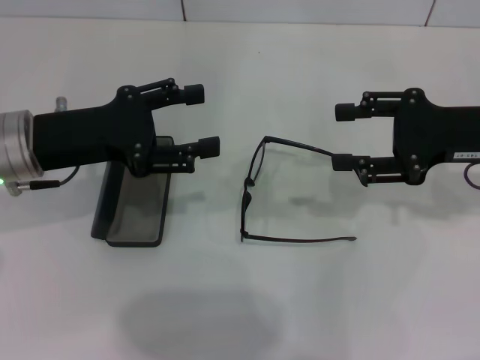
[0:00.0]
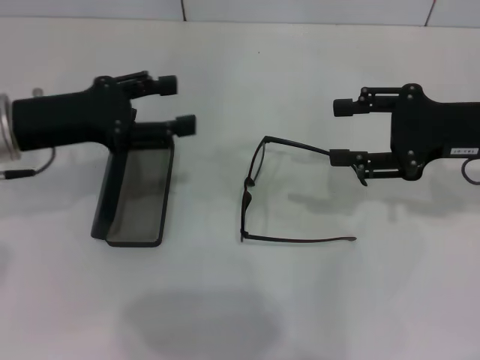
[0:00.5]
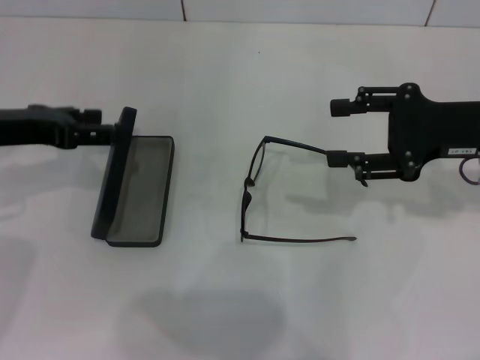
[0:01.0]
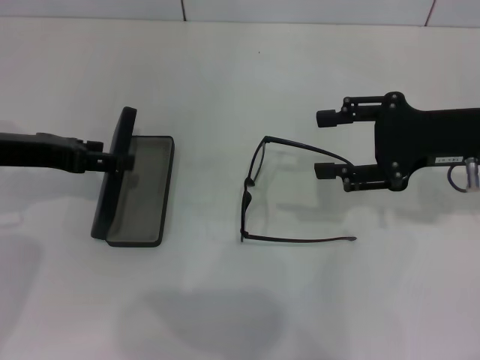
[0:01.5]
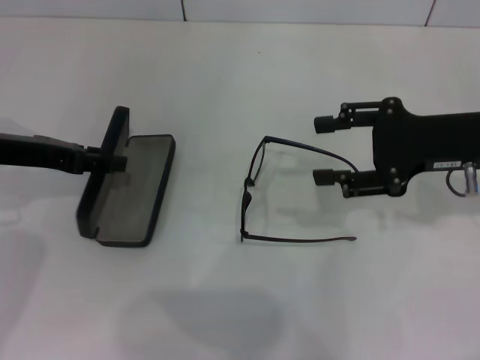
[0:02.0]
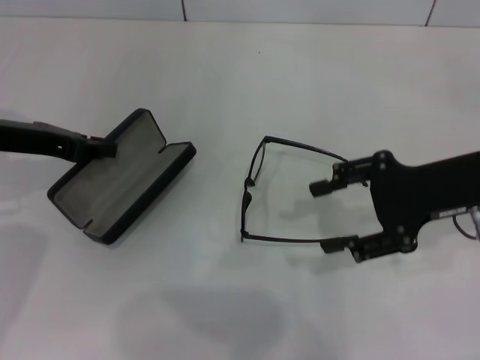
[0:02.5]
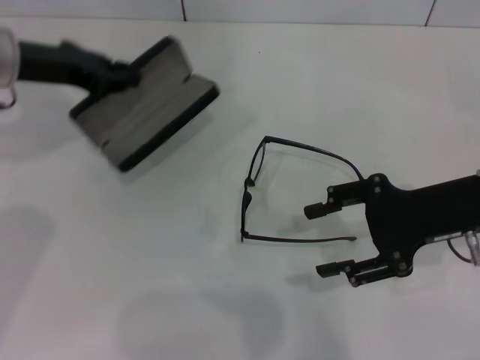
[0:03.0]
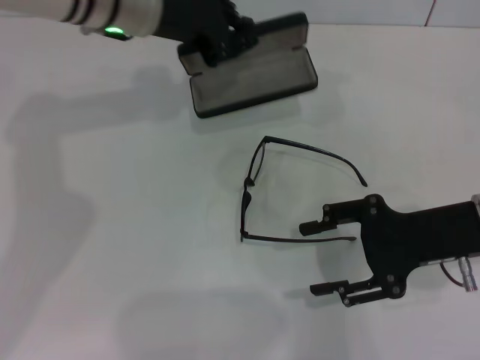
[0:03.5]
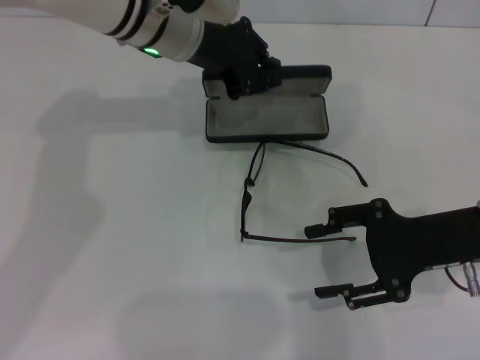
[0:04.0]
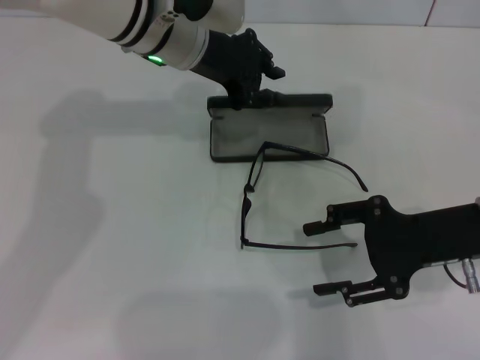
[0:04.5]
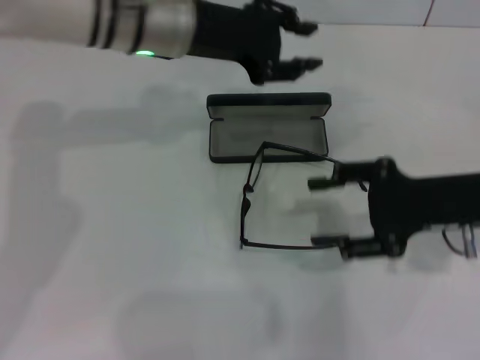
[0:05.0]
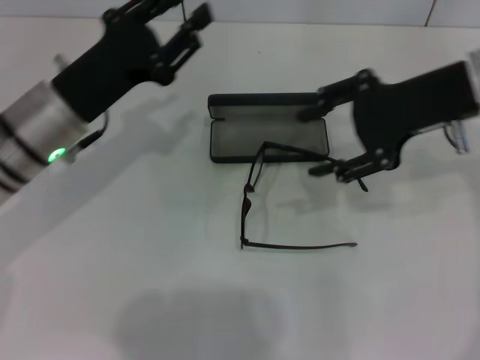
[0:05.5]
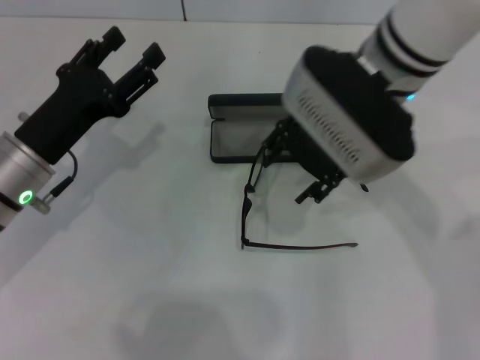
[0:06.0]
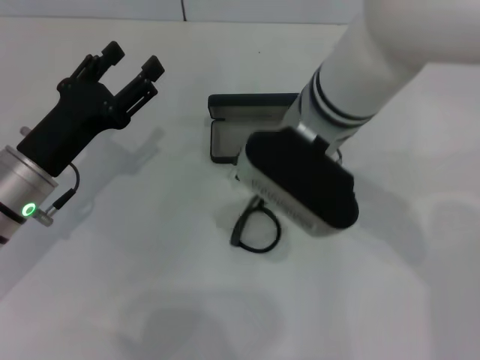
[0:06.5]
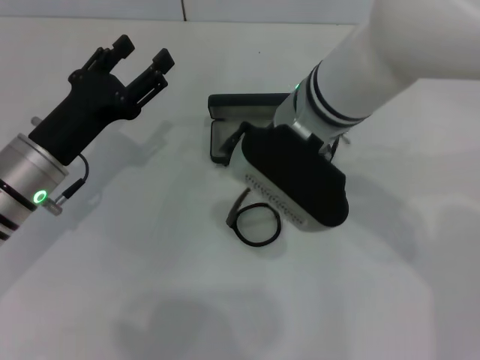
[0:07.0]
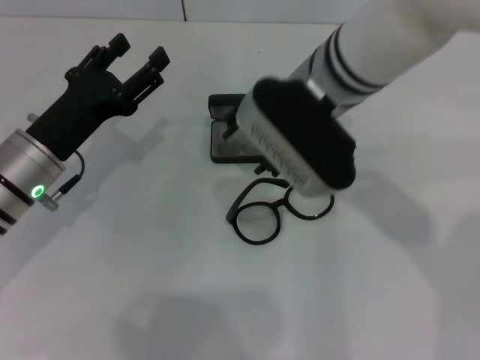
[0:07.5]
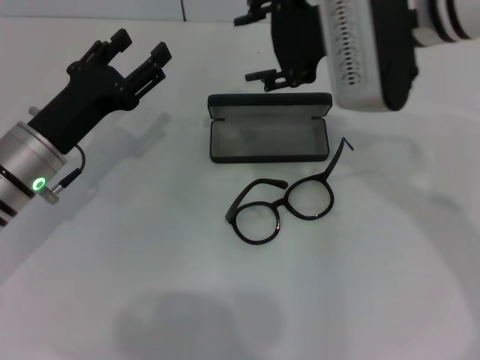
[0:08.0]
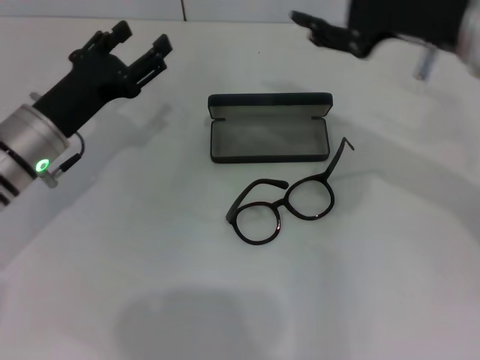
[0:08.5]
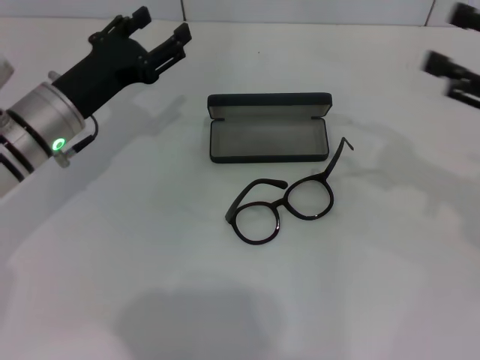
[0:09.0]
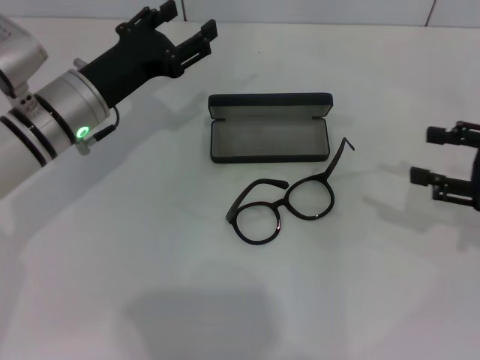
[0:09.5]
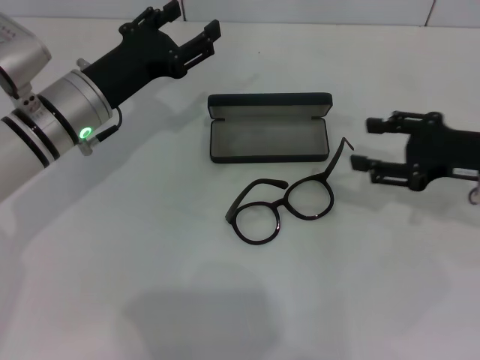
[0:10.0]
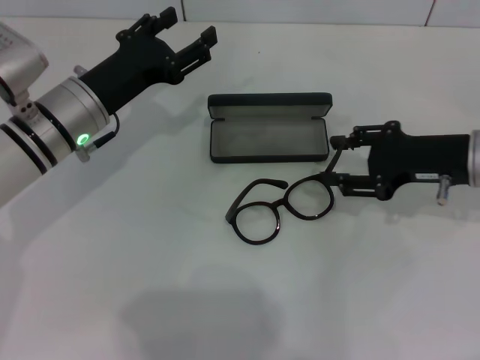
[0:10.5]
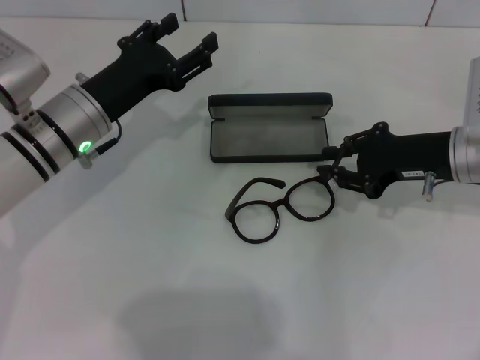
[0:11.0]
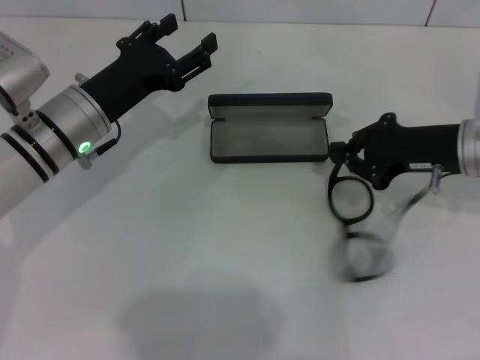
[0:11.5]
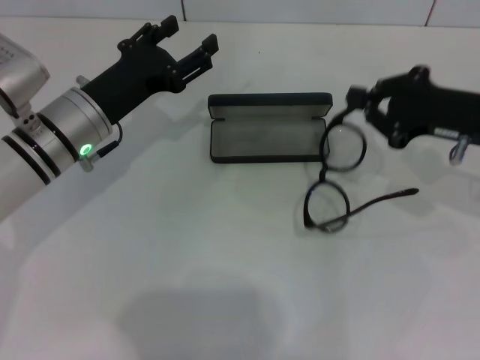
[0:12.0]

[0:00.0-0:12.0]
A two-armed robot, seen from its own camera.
Step, 0.0 to 2.0 s: Grab the glasses case with your left hand.
Step, 3.0 to 4.0 s: Place the glasses case in the center of the table with your left hand.
Step, 5.0 to 11.0 s: Grab the frame with your right hand.
0.0 to 2.0 s: The left gripper moves to the left, approximately 5 cm.
2.0 to 4.0 s: The right gripper moves backward, approximately 5 cm; the left gripper moves to the right and forward, some 20 cm, and closes up.
4.0 to 6.0 s: The left gripper goes roughly 25 cm backward, to the left and downward, and opens, while the right gripper is displaced to the left, upward and forward by about 20 cm.
8.0 to 10.0 s: The left gripper moves forward, about 5 cm; the right gripper moves to the right and downward, approximately 20 cm.
10.0 to 12.0 s: The right gripper closes.

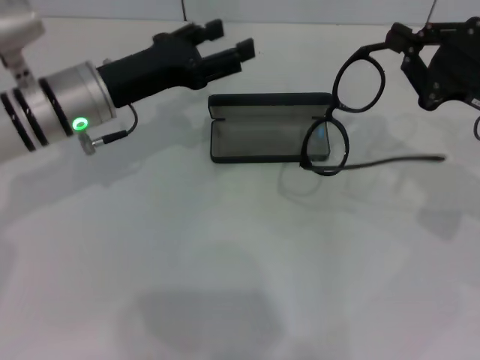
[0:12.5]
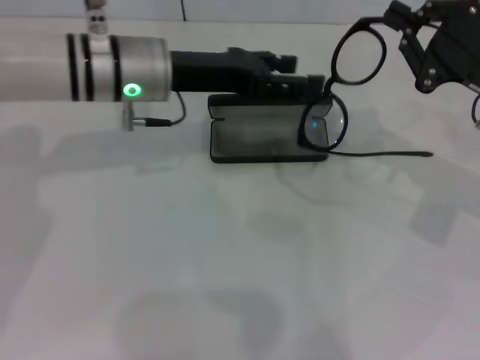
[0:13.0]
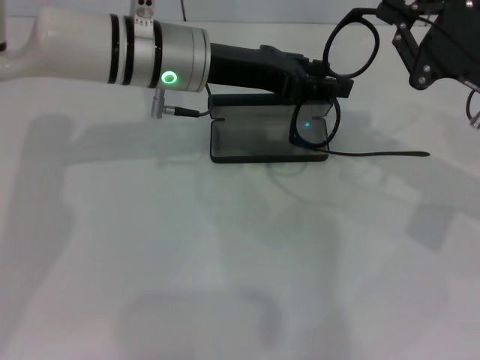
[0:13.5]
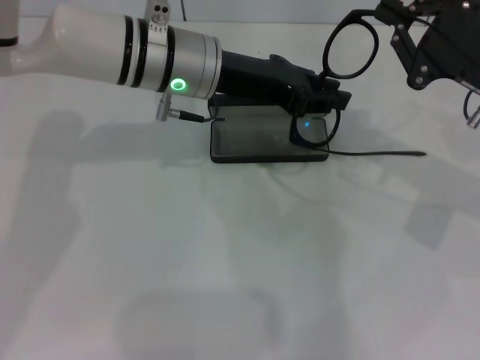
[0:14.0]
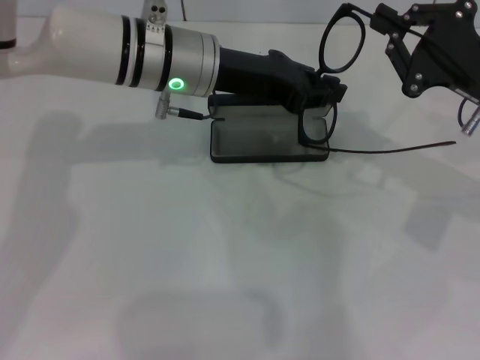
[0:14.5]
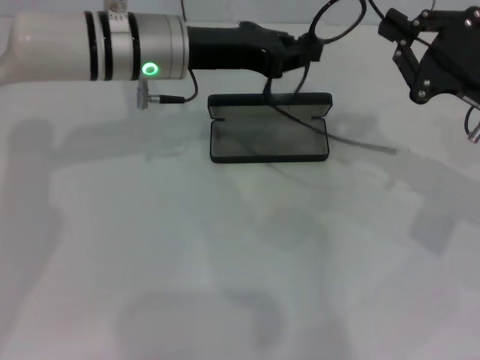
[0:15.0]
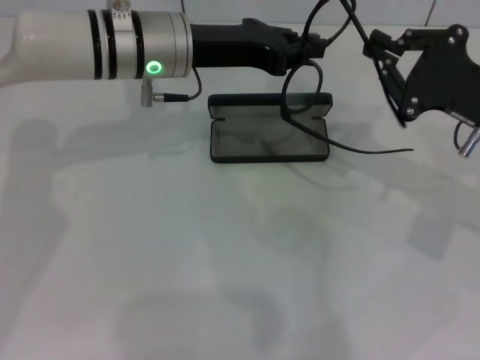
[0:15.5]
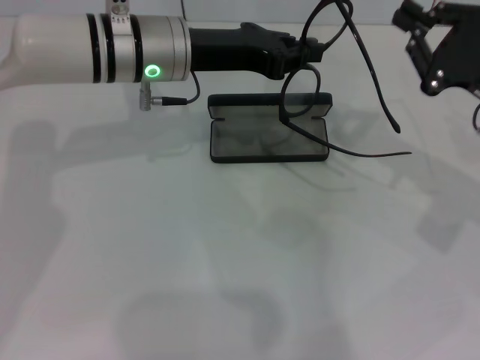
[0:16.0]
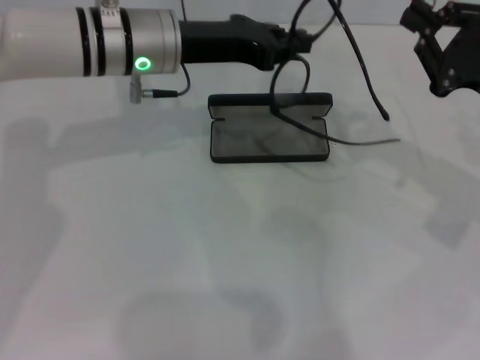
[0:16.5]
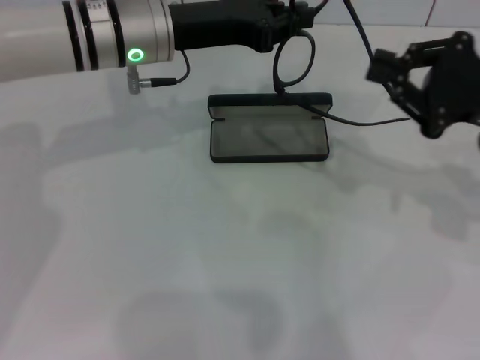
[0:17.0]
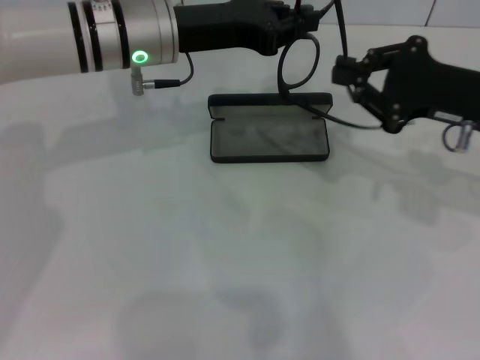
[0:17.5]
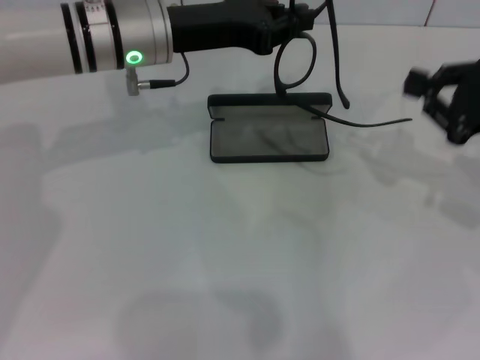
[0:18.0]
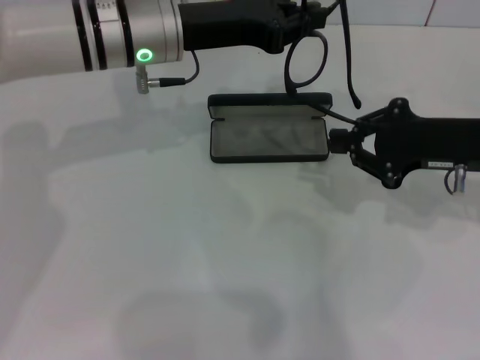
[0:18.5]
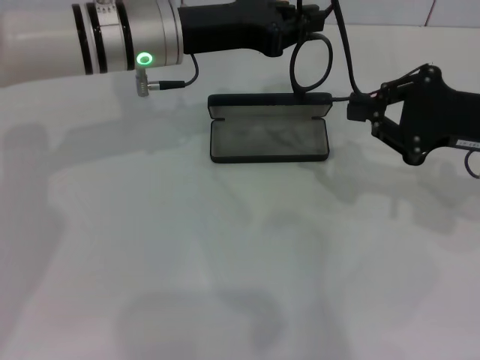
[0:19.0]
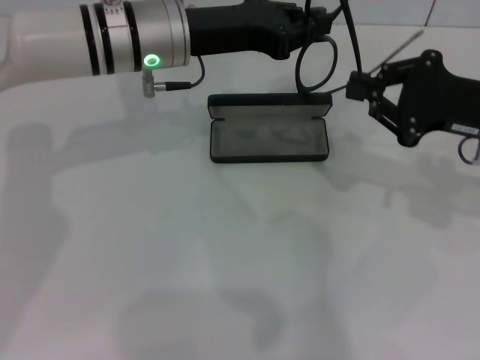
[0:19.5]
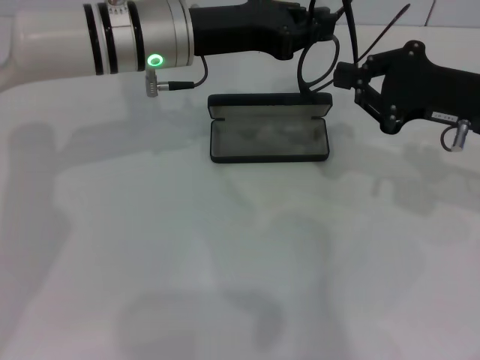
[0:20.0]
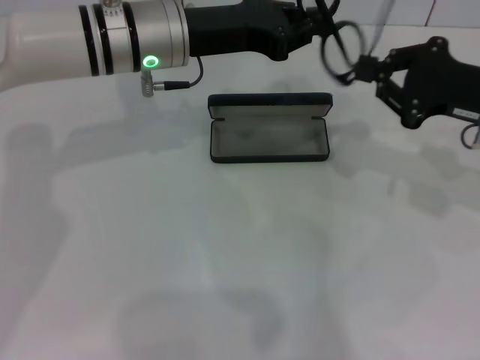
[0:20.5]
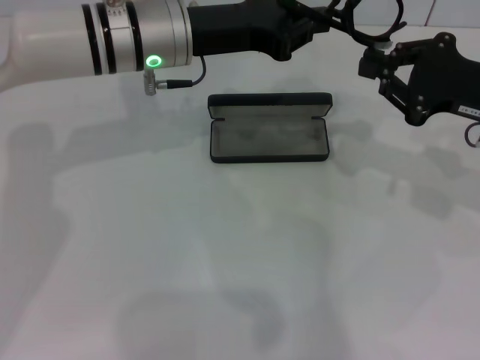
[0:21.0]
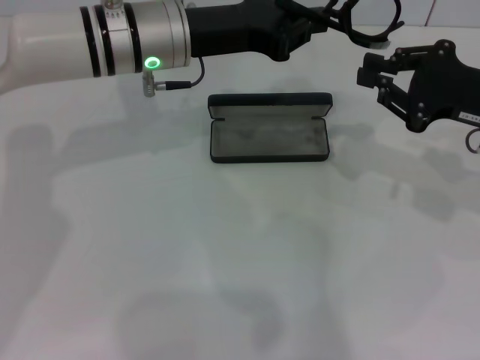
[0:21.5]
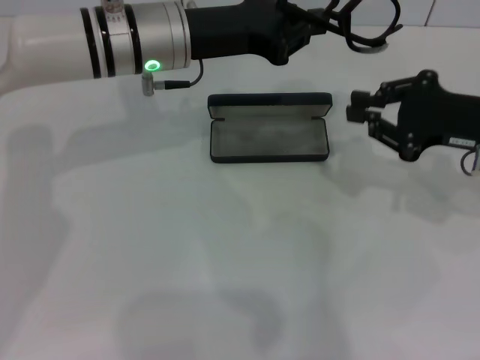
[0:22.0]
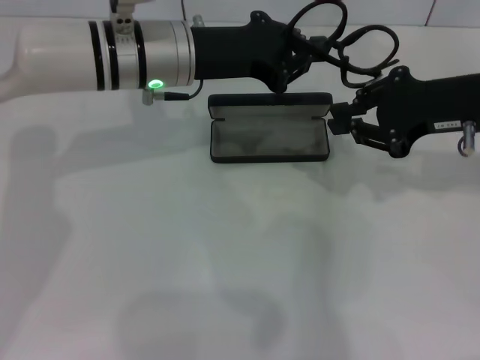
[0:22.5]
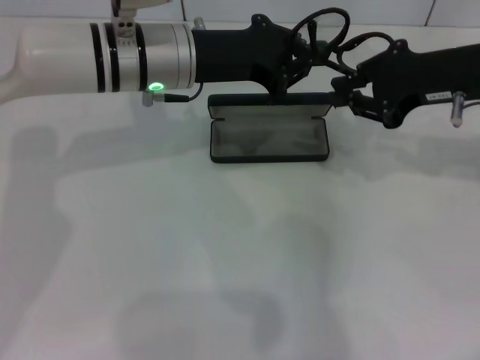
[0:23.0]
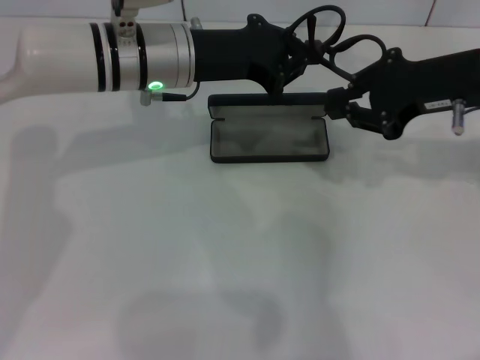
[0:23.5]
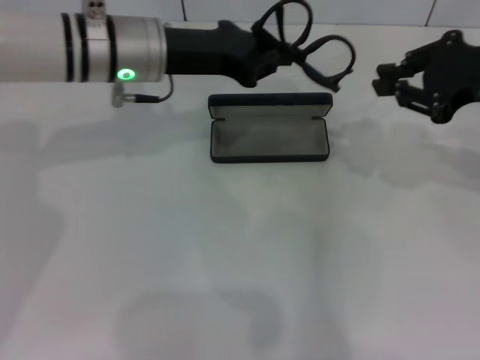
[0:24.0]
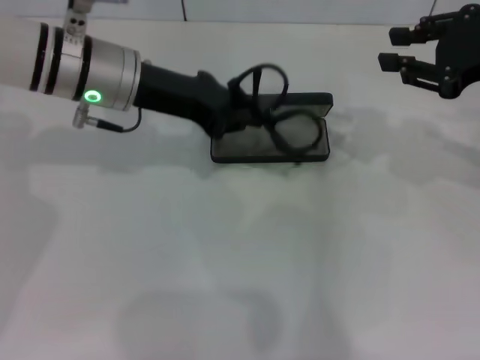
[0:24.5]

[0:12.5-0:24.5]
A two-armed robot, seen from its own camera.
Step, 12.5 to 23.0 s: Fold the frame with your right hand.
12.5 to 14.5 s: The left gripper moves to the right, some 10 cm, and closes.
14.5 to 16.5 s: The grippers make only small movements.
18.5 to 20.5 s: The grippers stay close to where they were, moving slightly.
22.5 to 24.5 s: The right gripper shifts by about 5 cm.

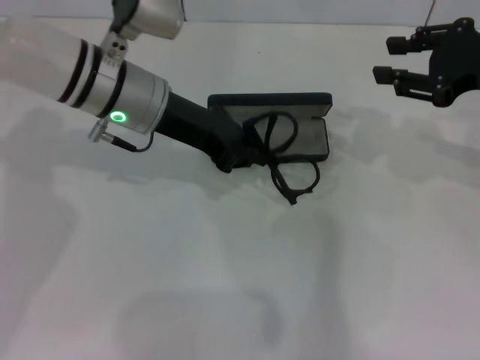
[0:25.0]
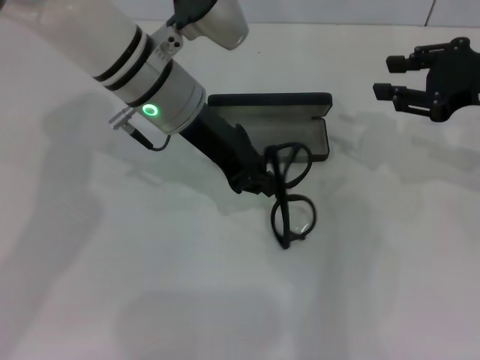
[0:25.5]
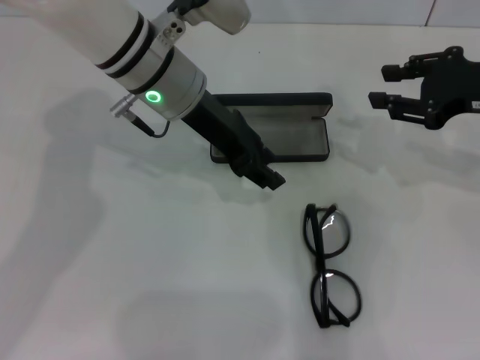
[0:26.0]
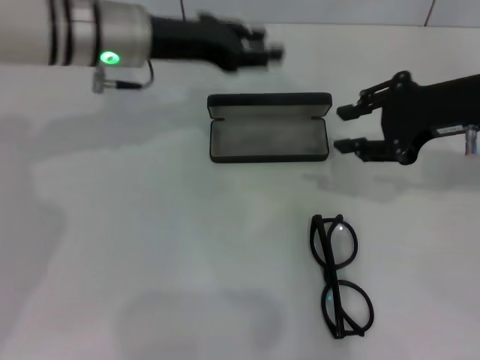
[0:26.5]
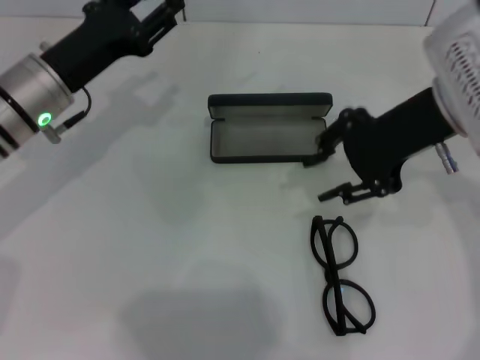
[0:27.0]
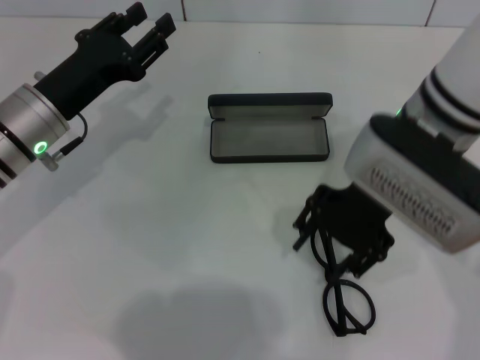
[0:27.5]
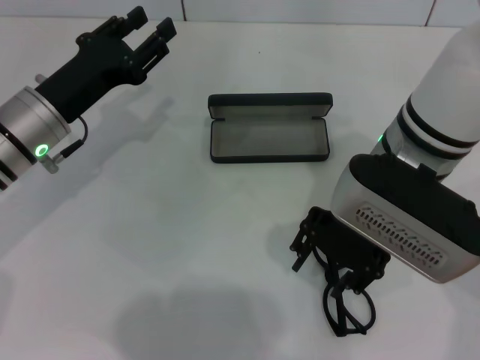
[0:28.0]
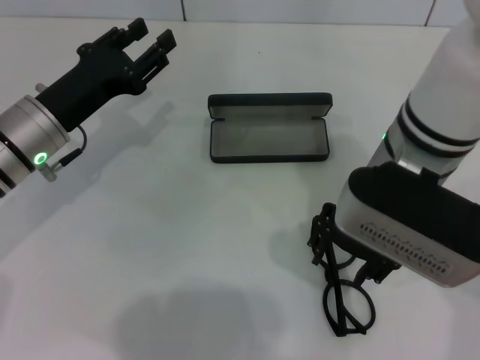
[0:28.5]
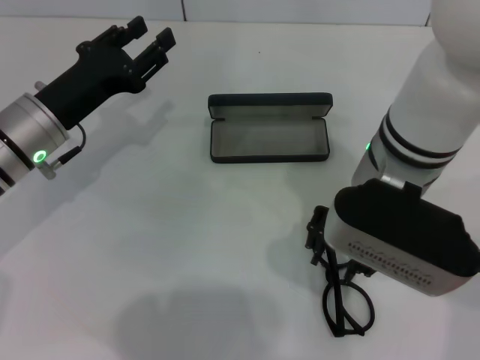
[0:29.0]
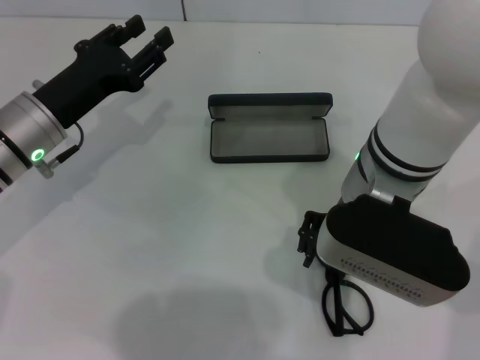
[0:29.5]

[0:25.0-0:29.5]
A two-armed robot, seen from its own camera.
25.0 to 27.0 s: Both grippers travel together to the left, about 10 cm. The left gripper opens its fingers.
27.0 to 29.5 s: The right gripper moves to the left, roughly 10 cm.
